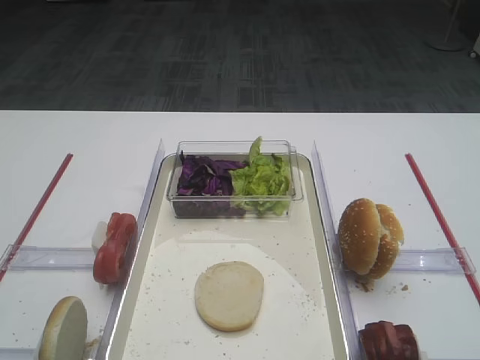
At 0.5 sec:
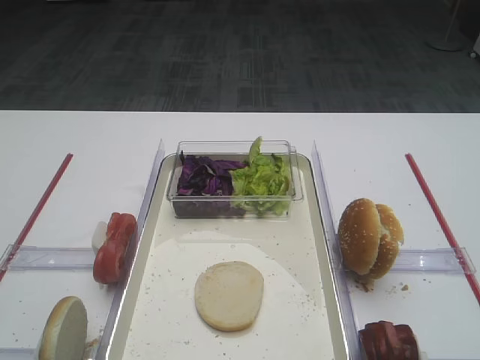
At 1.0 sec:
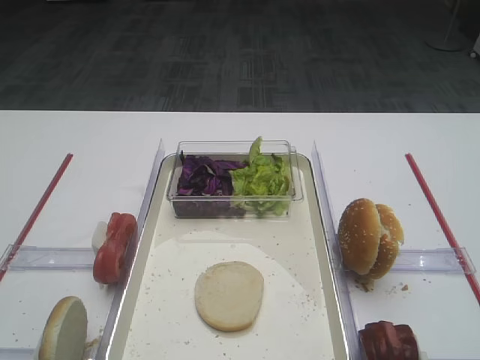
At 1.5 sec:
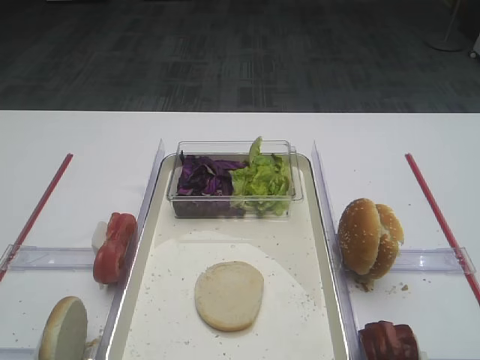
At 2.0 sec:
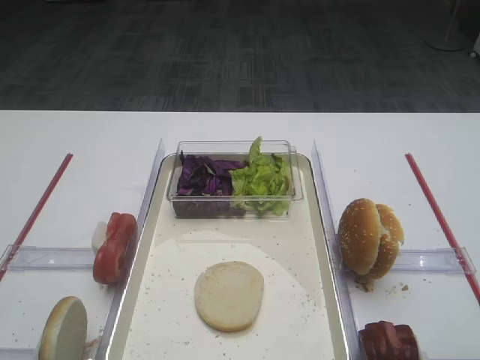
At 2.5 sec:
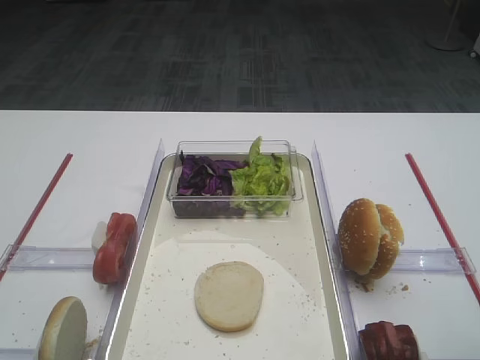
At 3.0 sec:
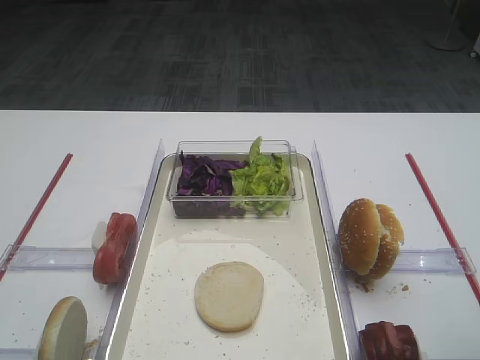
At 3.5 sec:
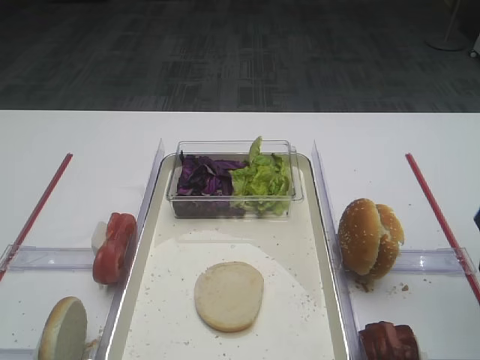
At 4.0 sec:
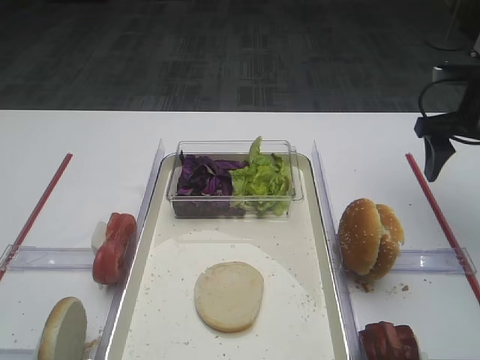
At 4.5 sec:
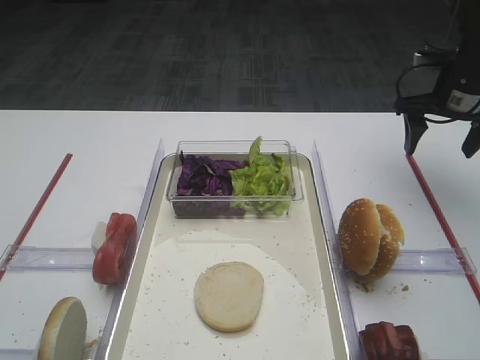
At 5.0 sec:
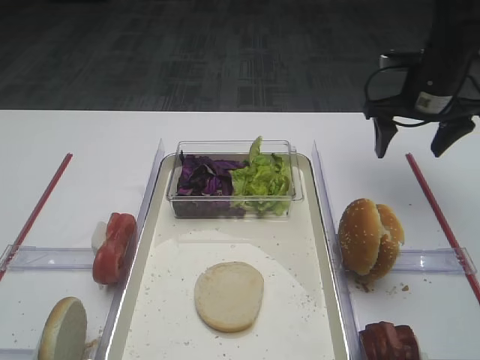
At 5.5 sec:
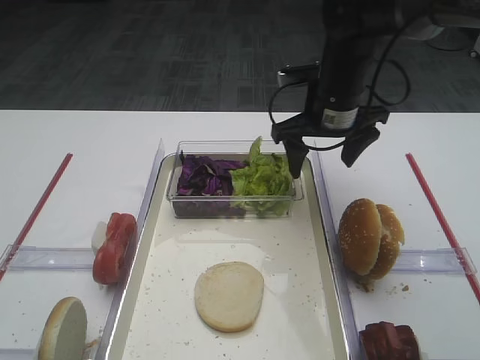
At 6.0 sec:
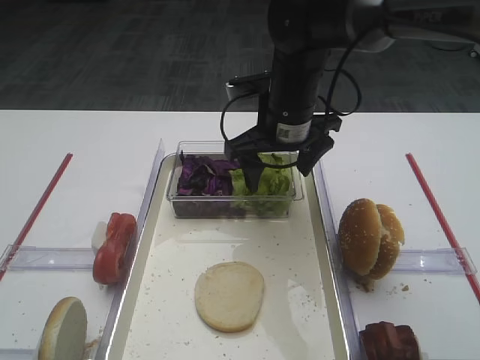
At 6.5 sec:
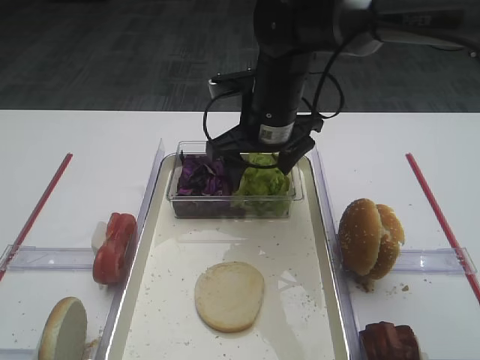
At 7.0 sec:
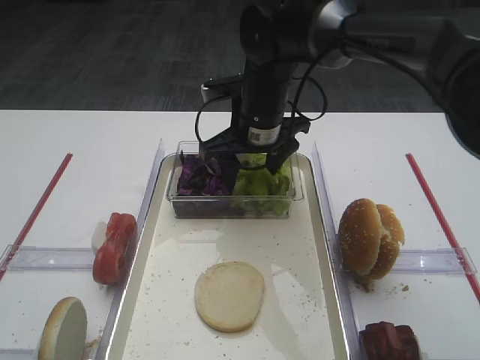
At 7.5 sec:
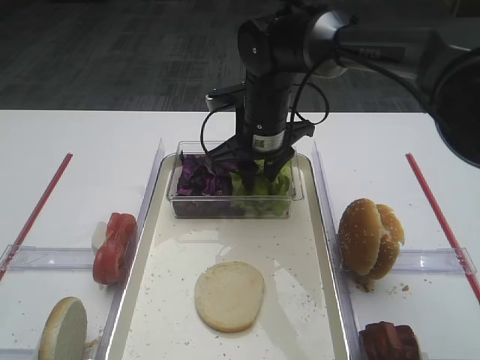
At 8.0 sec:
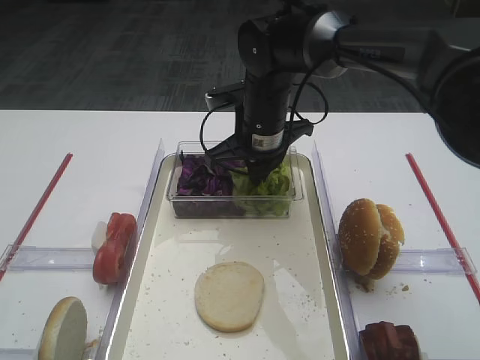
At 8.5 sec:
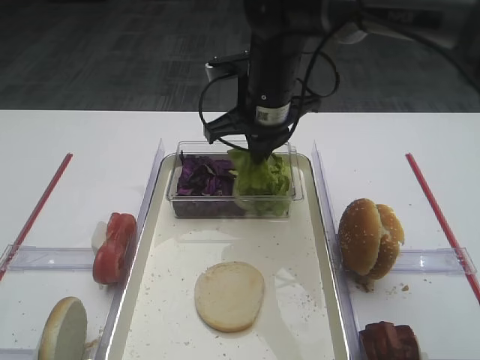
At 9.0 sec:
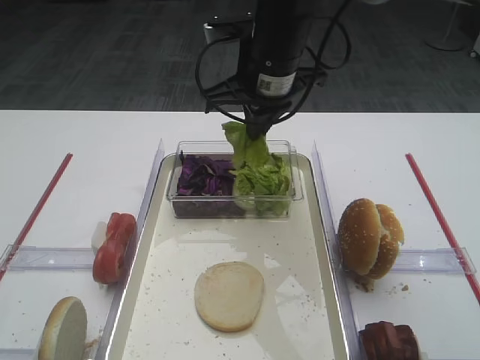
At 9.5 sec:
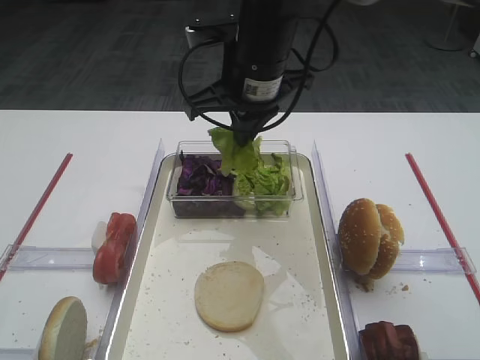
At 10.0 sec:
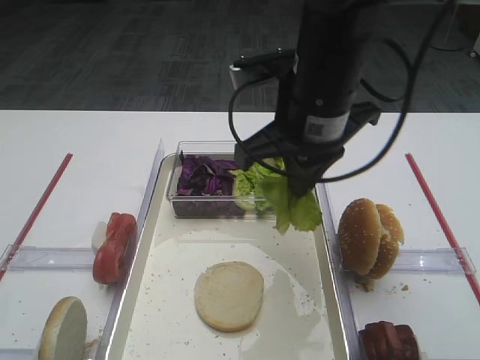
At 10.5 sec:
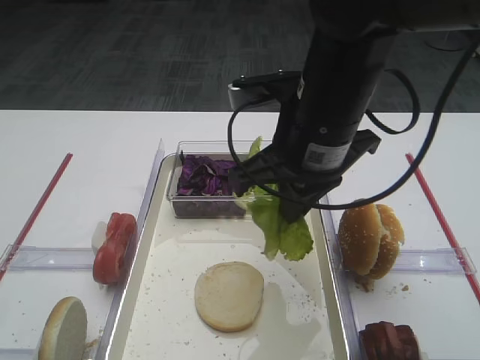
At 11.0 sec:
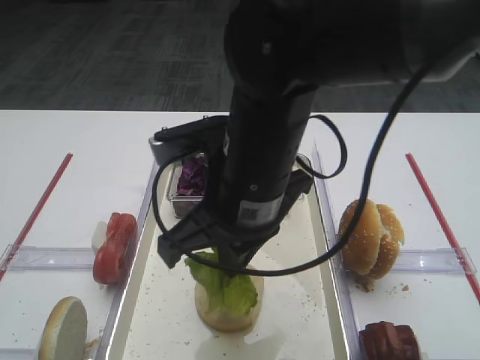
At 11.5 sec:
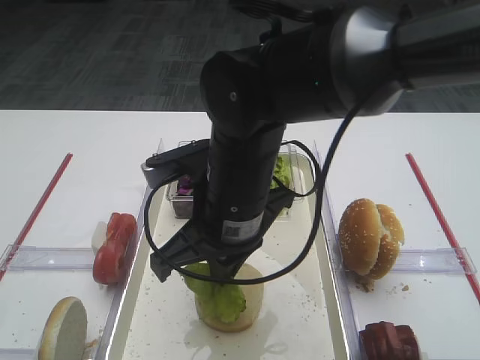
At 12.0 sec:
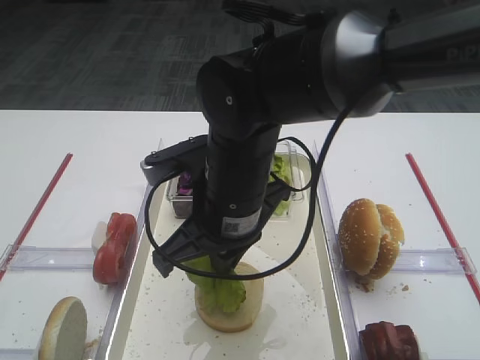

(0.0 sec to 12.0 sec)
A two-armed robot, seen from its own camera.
Step, 0.0 sec - 8.5 sec: Pick up the lettuce leaf with the right gripper.
2.0 sec - 4.0 sec: The right gripper is displaced forward by roughly 30 cm.
4.0 sec - 6.0 sec: The right gripper goes roughly 25 cm to the left.
6.0 sec - 8.0 sec: The right gripper closes up.
8.0 sec - 10.0 sec: The right gripper heads backward and upward, covering approximately 15 cm.
10.0 sec - 12.0 sec: The right gripper moves to the left and downward, some 10 cm.

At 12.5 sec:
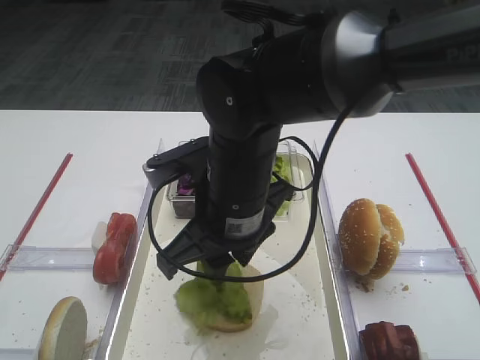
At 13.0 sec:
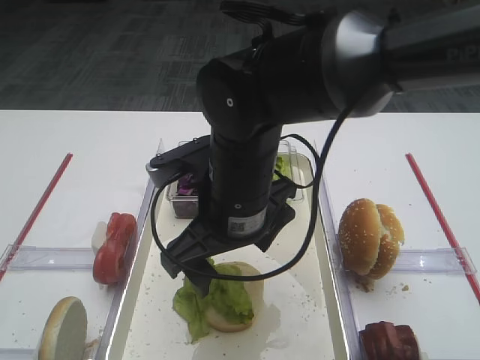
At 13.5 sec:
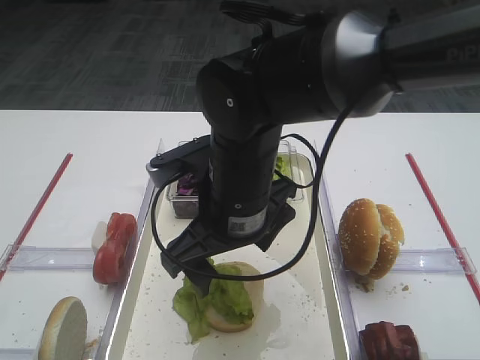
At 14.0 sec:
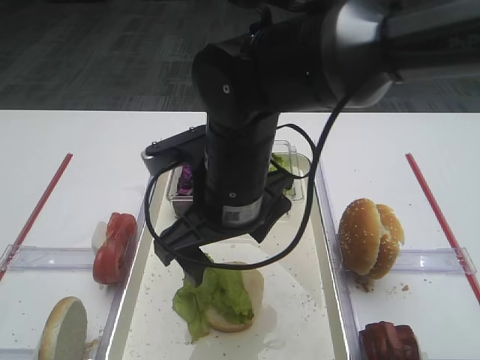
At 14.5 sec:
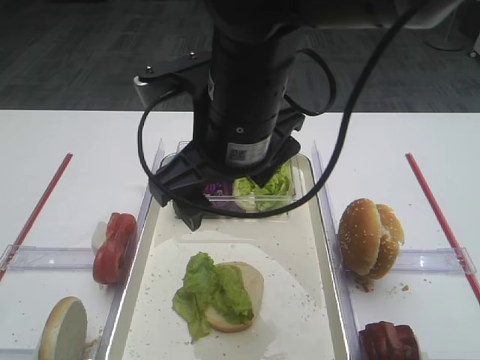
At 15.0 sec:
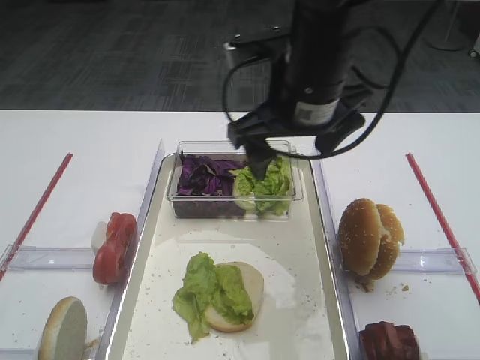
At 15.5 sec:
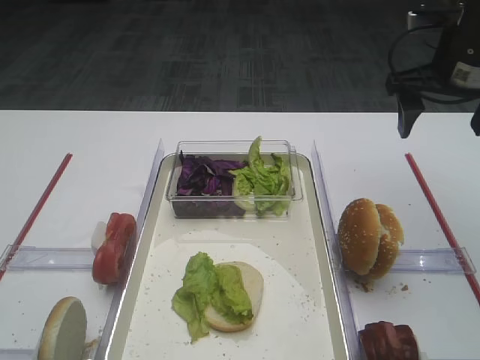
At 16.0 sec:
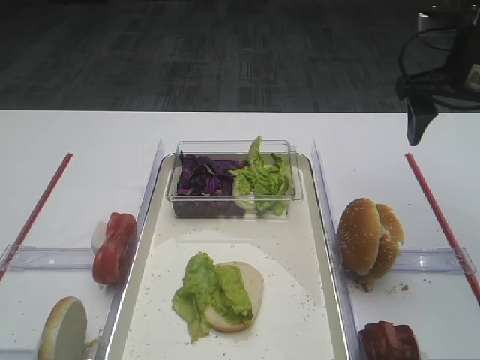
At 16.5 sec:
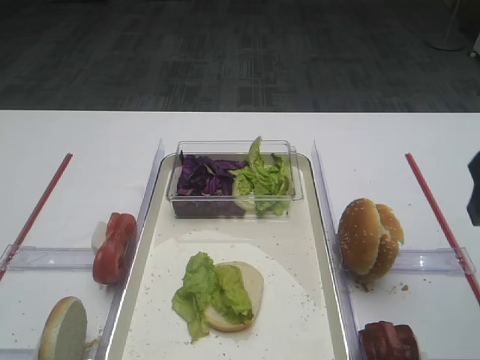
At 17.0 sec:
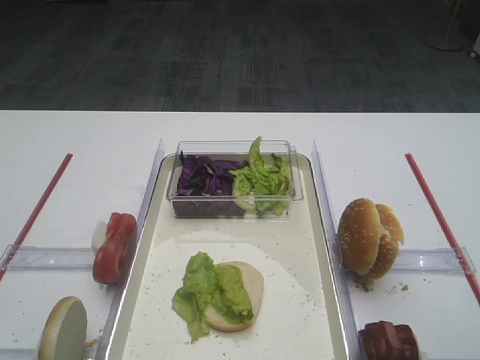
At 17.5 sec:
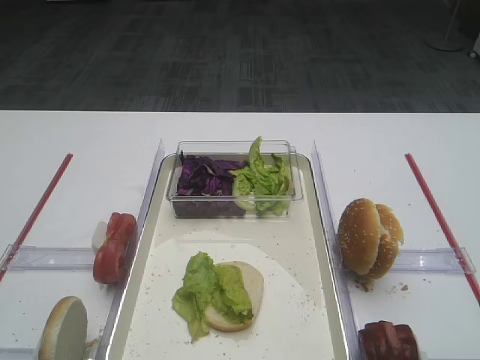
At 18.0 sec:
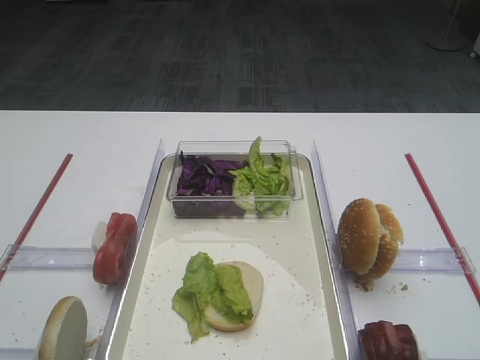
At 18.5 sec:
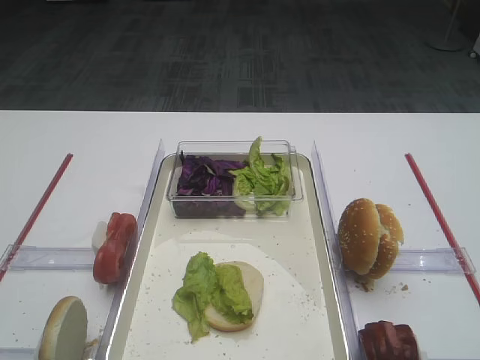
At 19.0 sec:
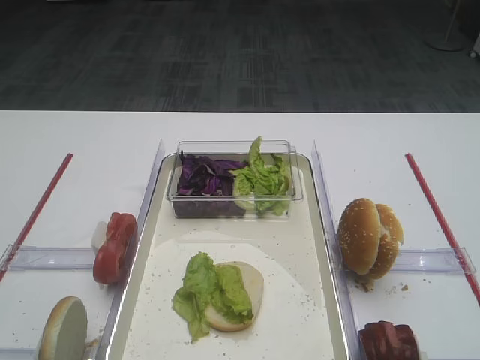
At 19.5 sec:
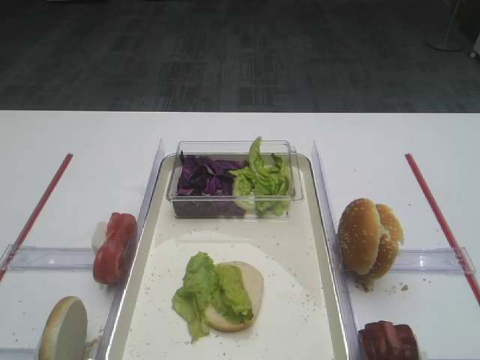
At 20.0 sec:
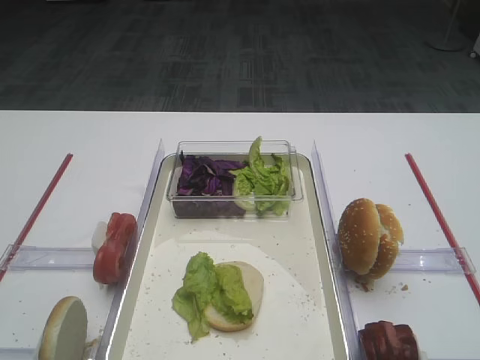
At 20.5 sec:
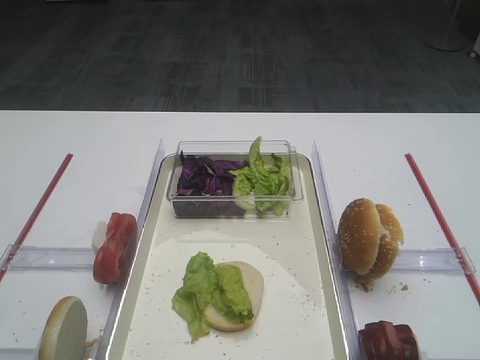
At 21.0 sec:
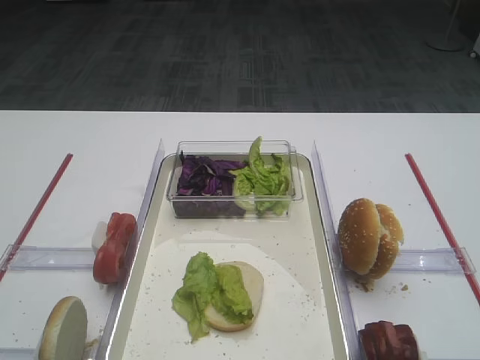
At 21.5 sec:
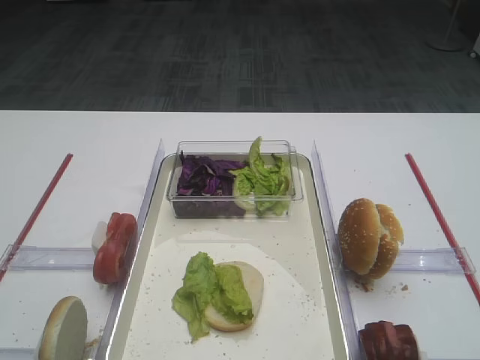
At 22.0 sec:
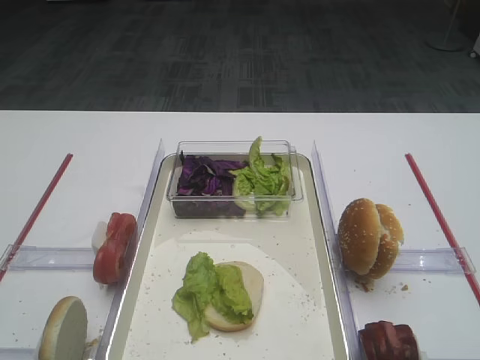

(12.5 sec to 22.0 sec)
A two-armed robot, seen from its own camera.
12.5 sec - 14.5 sec: The right gripper heads upward, covering about 10 cm, and opens up.
14.5 sec - 16.5 sec: The right gripper shifts some 25 cm to the right.
16.5 sec - 18.0 sec: The right gripper is displaced backward by roughly 20 cm.
18.0 sec - 22.0 sec: Neither gripper changes place.

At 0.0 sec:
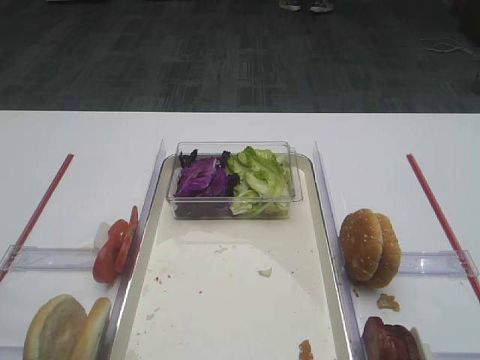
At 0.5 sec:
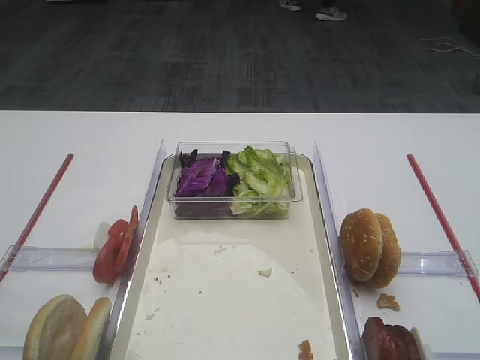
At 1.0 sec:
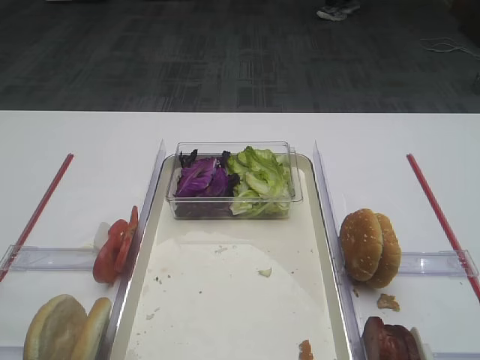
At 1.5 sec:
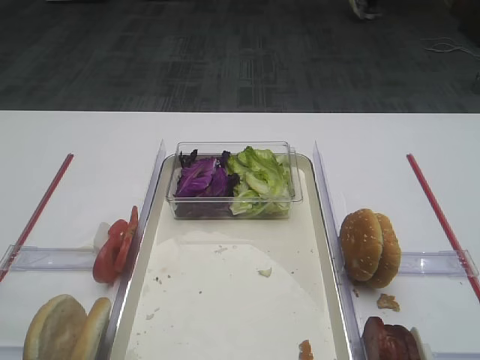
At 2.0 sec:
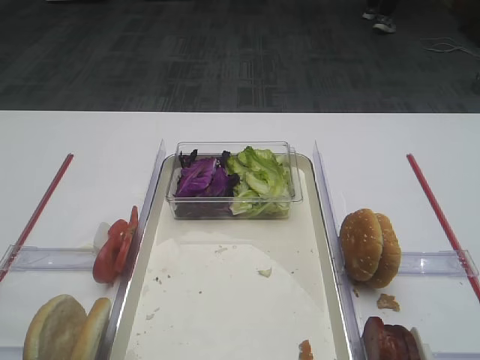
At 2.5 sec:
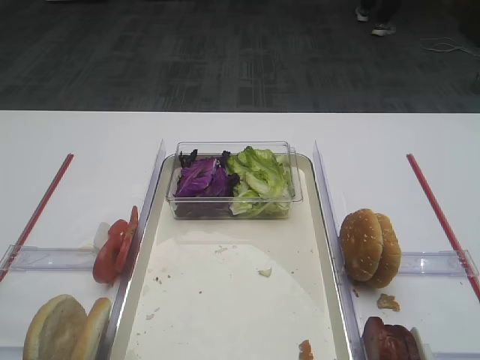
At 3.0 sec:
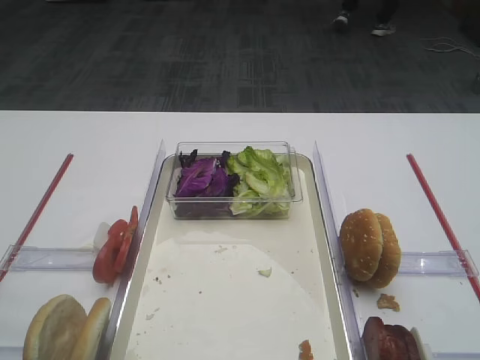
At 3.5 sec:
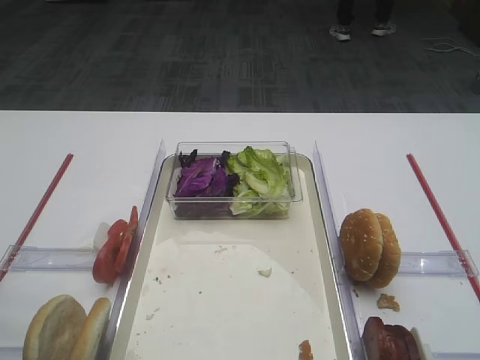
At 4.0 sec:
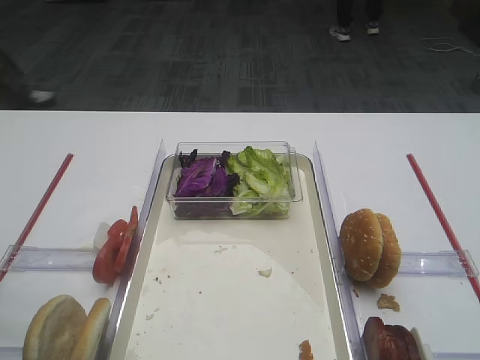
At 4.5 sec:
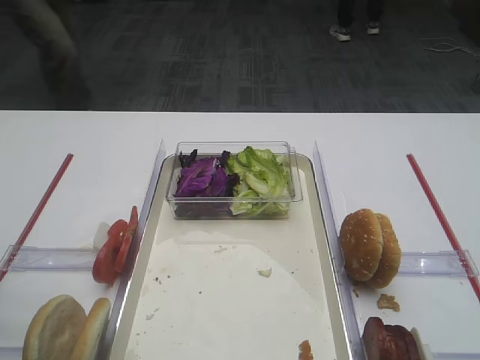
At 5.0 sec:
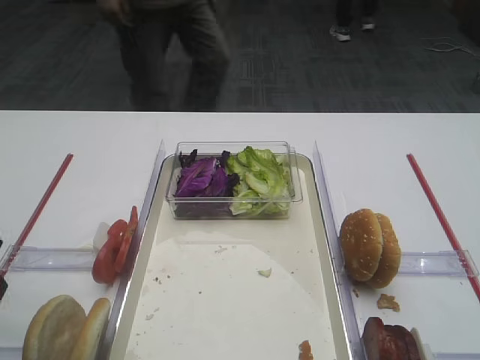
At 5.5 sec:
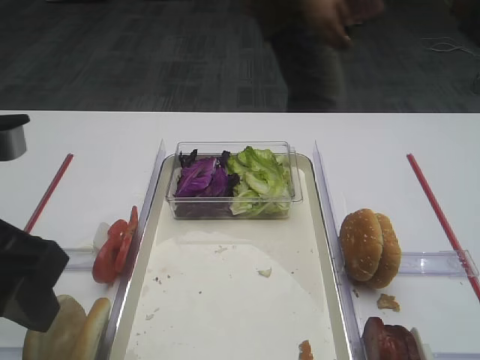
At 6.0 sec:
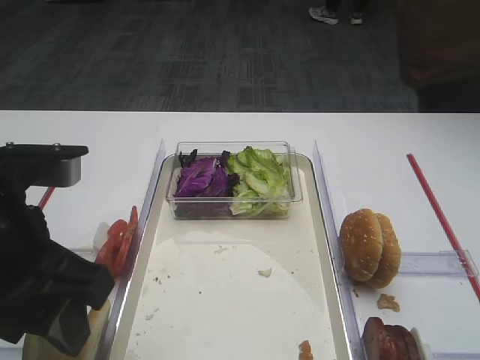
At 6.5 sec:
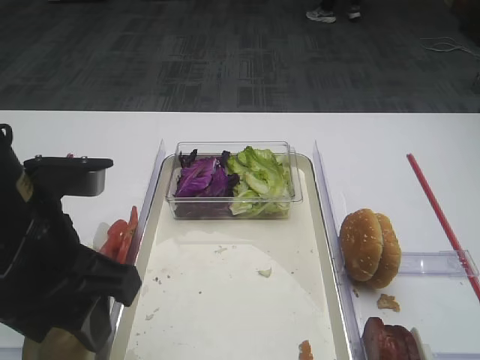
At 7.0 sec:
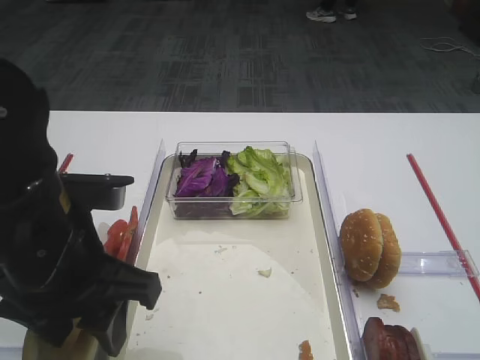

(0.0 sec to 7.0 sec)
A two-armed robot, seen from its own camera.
3.5 sec - 5.0 sec: The left gripper ends up about 5 cm from where it was.
5.0 sec - 7.0 sec: The left gripper travels to the right, downward and forward by about 15 cm.
